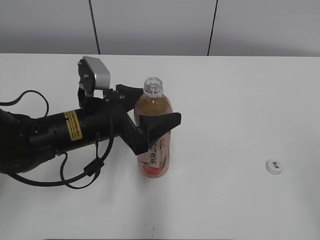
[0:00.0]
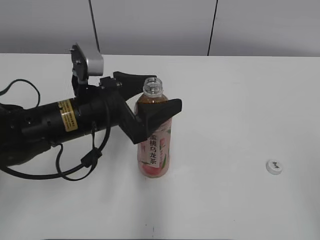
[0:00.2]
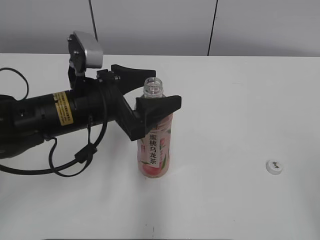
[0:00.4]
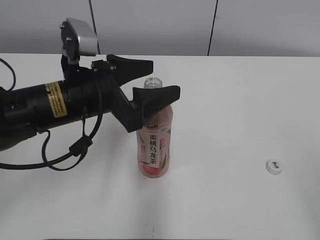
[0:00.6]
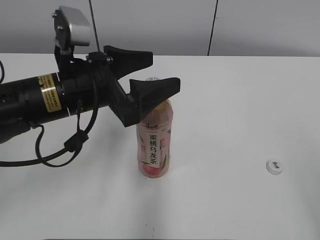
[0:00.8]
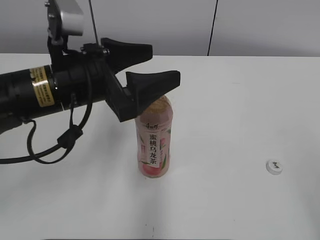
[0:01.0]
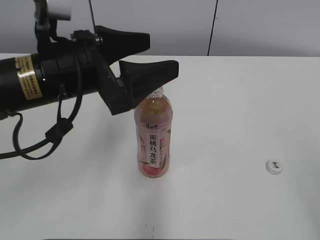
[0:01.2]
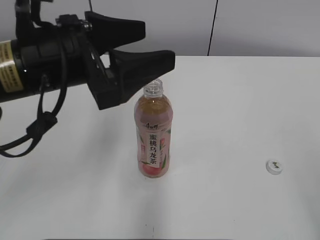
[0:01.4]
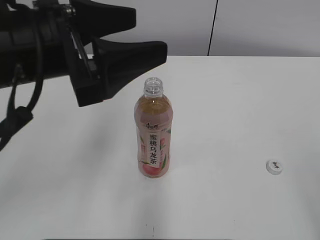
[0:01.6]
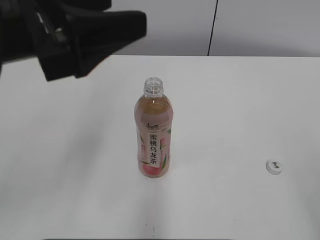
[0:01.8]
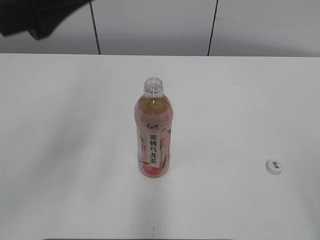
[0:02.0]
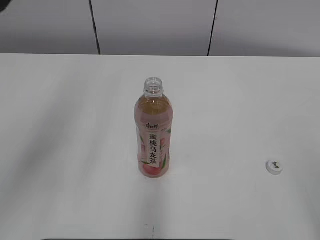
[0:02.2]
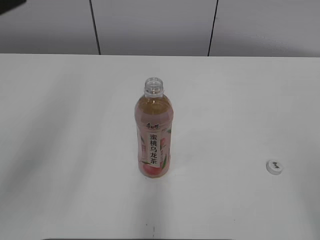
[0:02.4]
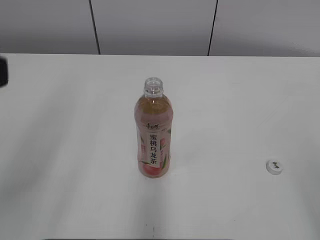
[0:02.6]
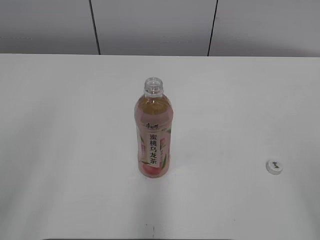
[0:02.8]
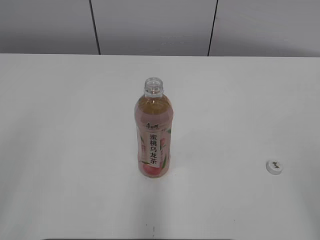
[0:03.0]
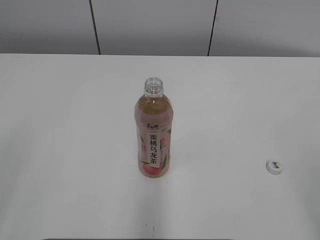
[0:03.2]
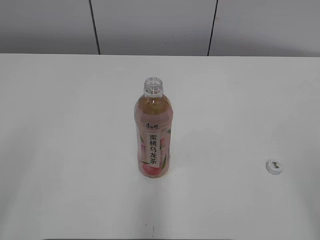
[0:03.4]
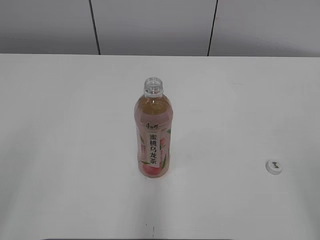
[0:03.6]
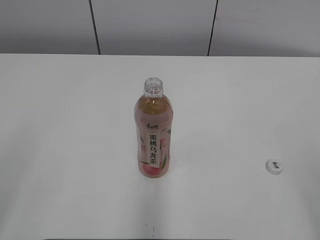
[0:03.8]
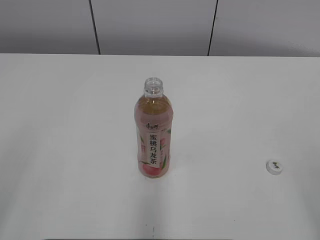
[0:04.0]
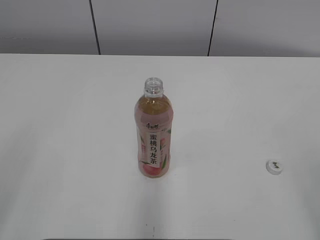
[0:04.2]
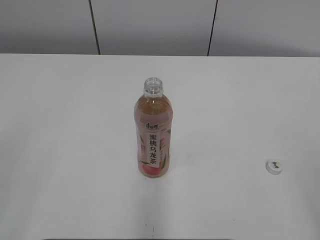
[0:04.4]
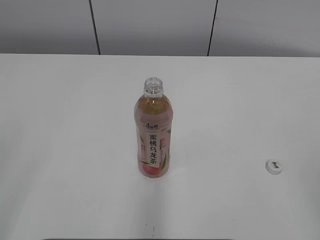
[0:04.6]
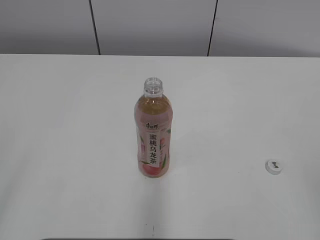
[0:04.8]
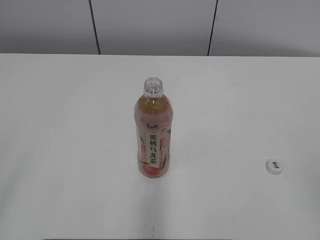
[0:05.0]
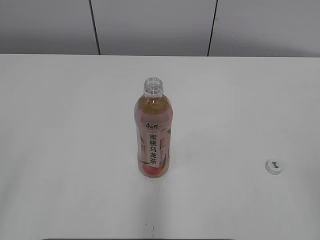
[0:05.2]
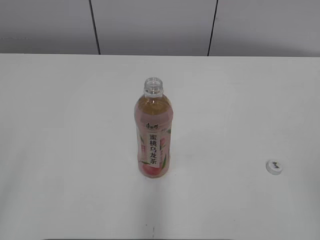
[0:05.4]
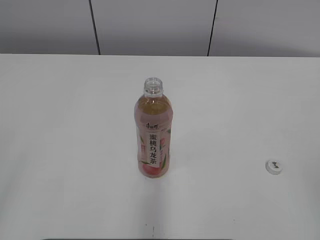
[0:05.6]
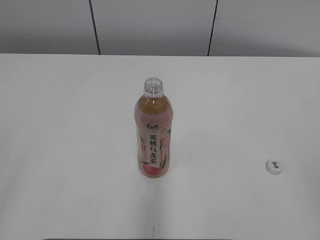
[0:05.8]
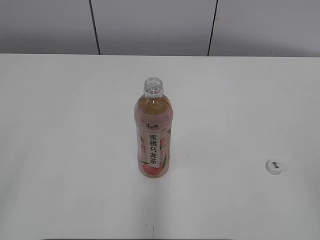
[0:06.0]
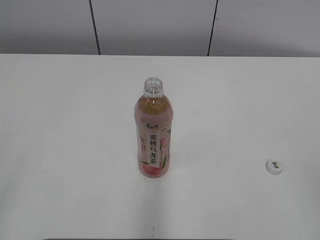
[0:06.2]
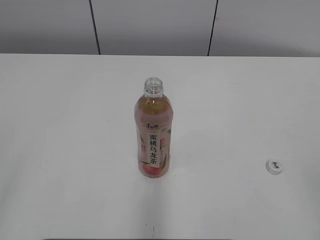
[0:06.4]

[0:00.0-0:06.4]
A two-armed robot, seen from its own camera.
0:00.0 to 0:01.6: The left gripper shifts roughly 15 cm upward.
0:01.6 to 0:03.2: The left gripper heads backward and to the left, covering approximately 25 cm.

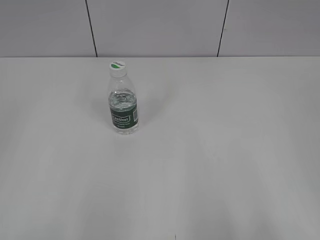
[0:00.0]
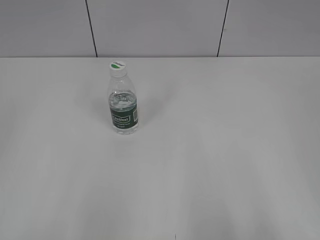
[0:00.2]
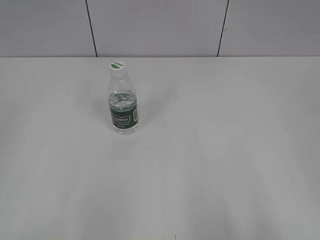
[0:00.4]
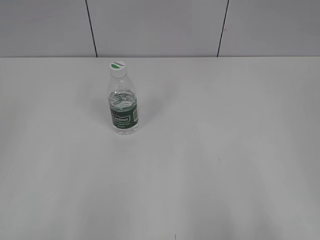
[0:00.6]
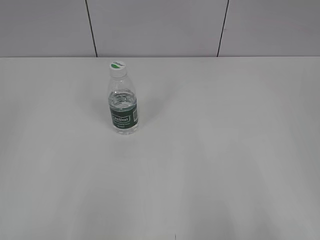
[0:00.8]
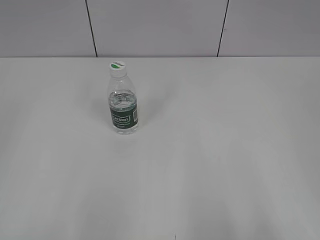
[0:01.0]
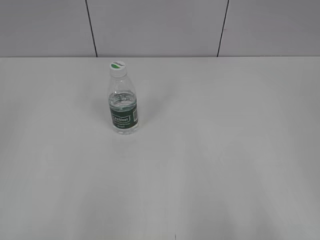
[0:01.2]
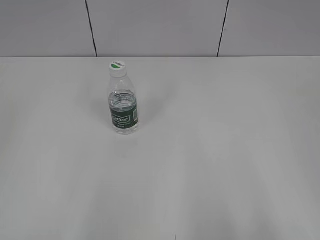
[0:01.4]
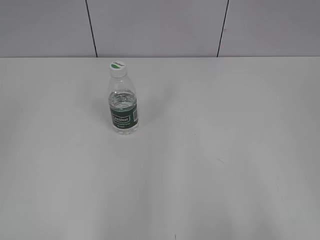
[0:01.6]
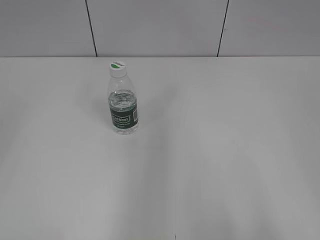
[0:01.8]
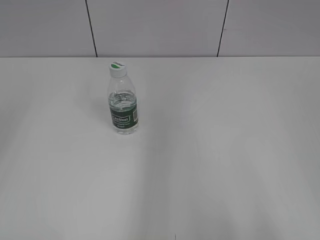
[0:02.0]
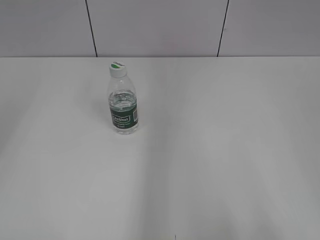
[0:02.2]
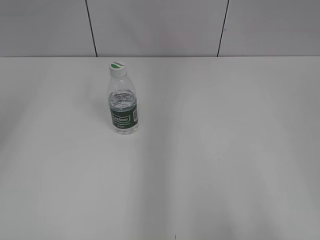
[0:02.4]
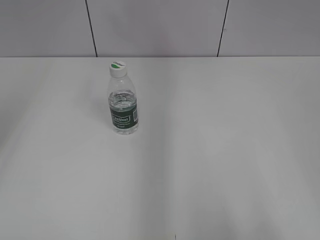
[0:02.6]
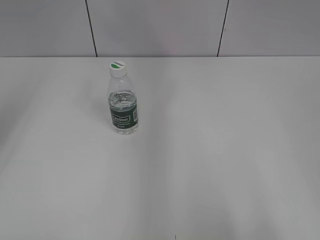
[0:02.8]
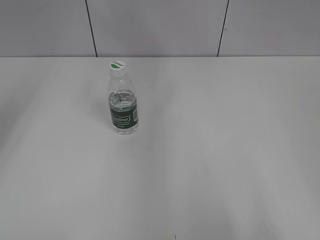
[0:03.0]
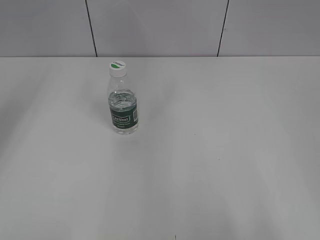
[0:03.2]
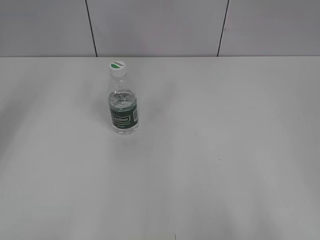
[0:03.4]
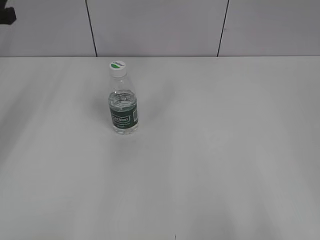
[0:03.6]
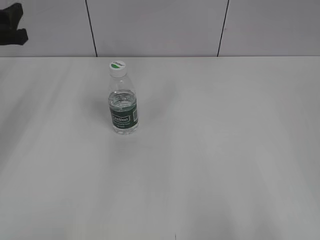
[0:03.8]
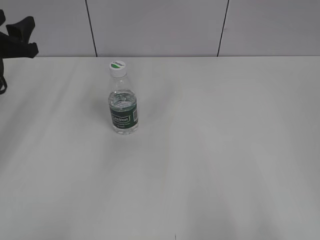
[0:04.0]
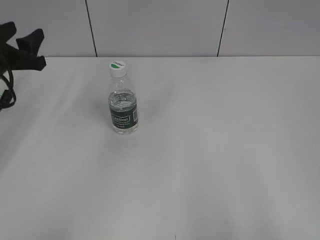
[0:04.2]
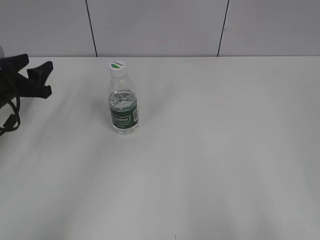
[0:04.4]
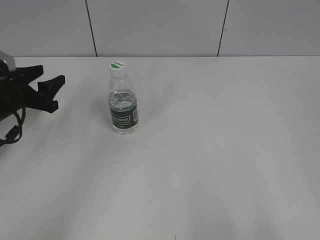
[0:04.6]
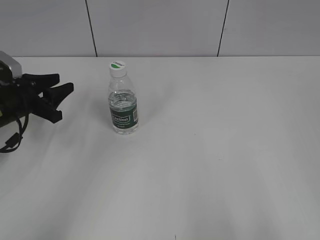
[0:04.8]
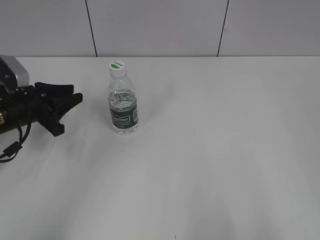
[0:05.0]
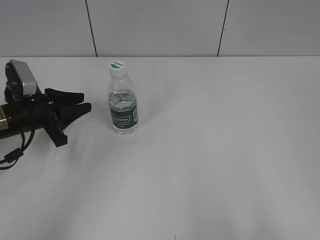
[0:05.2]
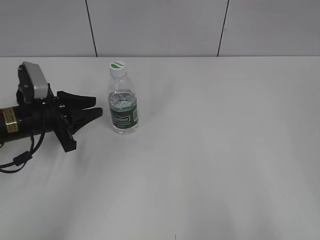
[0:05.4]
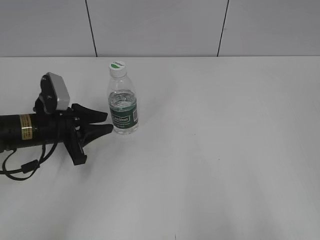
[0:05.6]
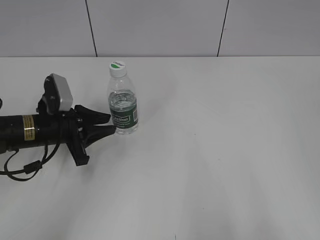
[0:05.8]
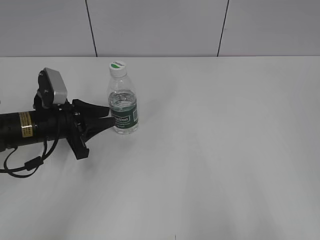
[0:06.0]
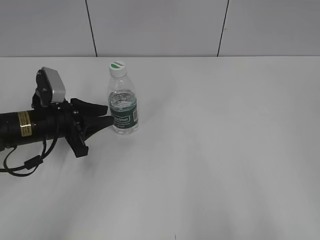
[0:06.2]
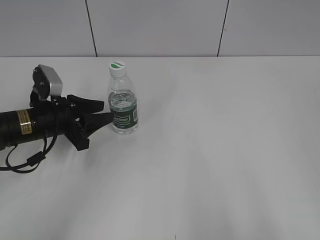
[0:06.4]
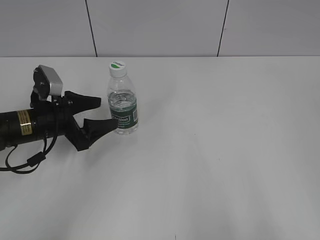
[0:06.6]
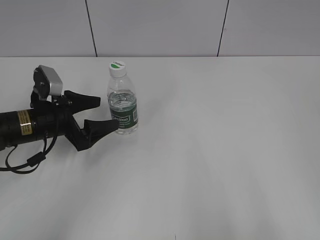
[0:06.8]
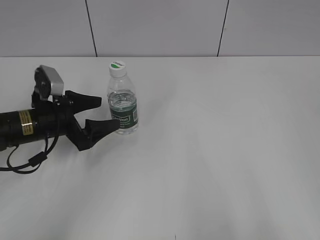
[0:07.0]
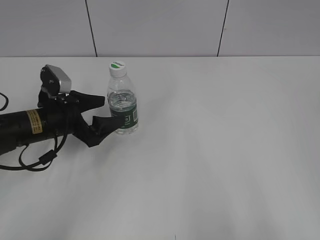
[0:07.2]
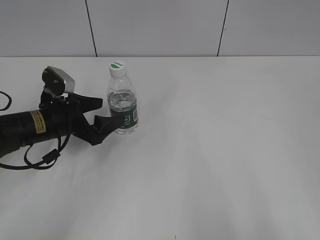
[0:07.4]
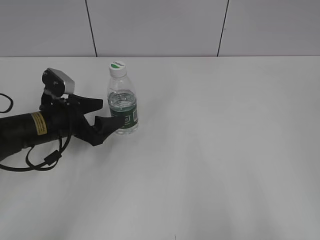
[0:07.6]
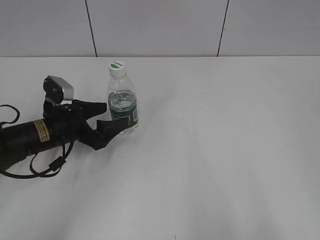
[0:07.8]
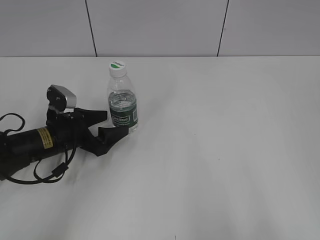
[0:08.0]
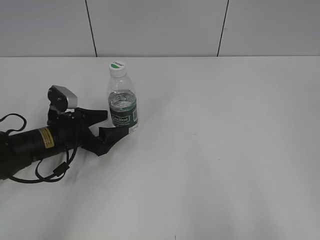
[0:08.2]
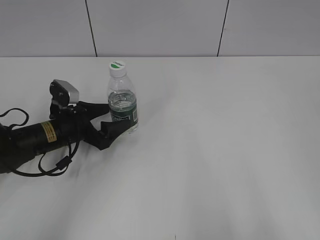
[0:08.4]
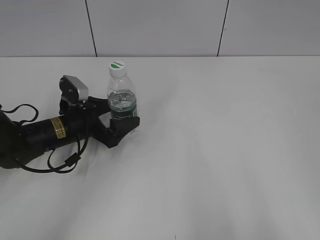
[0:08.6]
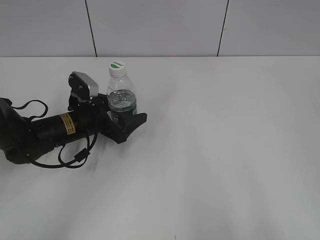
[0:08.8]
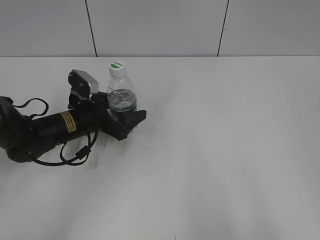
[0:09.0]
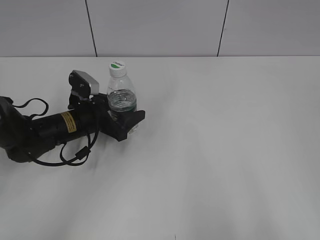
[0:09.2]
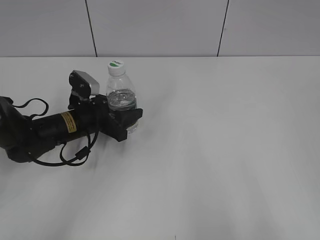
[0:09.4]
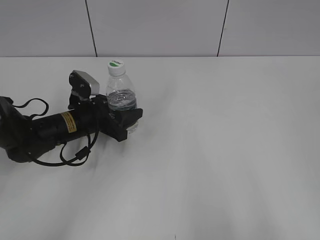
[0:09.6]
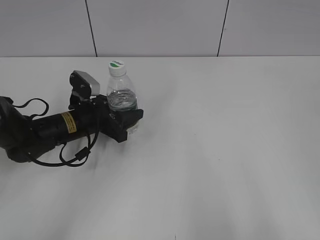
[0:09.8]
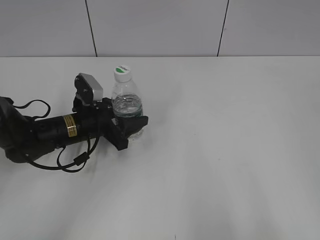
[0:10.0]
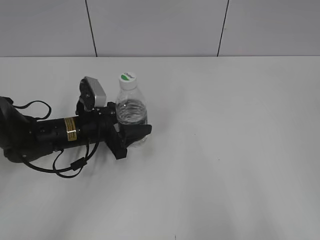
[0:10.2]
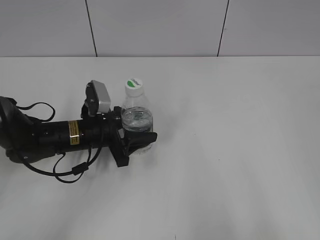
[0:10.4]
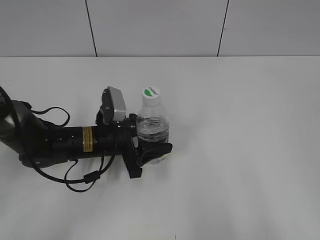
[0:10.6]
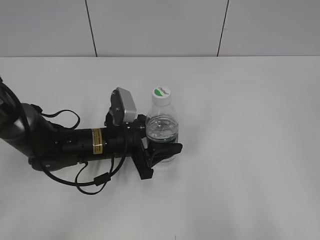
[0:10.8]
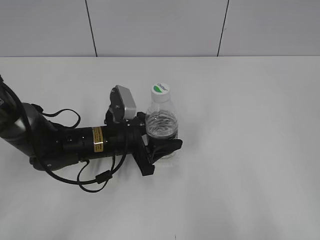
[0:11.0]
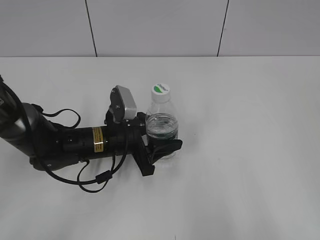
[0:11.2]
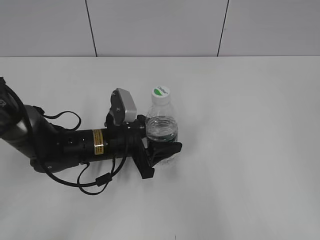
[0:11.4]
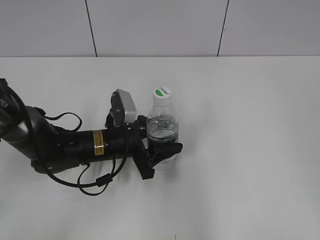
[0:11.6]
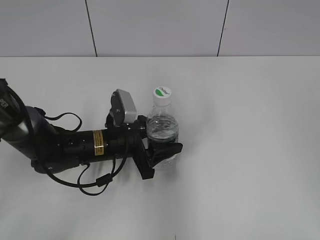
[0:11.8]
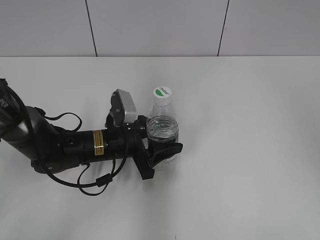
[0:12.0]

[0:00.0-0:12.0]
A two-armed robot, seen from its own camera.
Step, 0:00.0 to 0:09.6: Grasp the bottle and move it to the center of the table with the left gripper.
0:03.0 to 0:04.4: The left gripper shifts about 25 cm downward.
0:04.4 to 0:06.0: The left gripper travels to the right by roughly 10 cm, and closes.
0:06.0 to 0:07.6: The left gripper opens its fingers.
0:07.6 to 0:09.0: The left gripper shifts by roughly 5 cm.
0:09.0 to 0:10.4: The left gripper closes up.
0:10.4 to 0:12.0: The left gripper ends up some 5 cm from where it was. The right gripper moves forward and upward, roughly 20 cm.

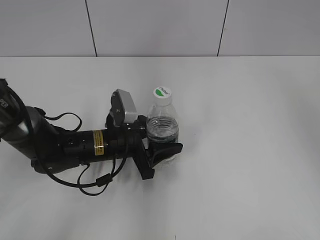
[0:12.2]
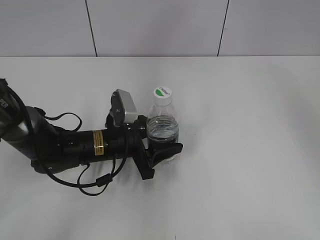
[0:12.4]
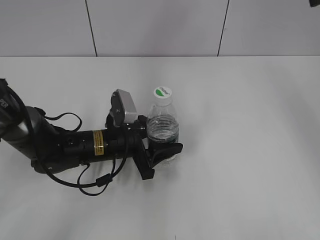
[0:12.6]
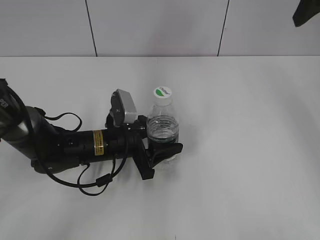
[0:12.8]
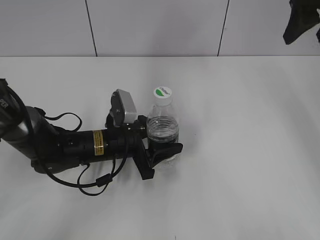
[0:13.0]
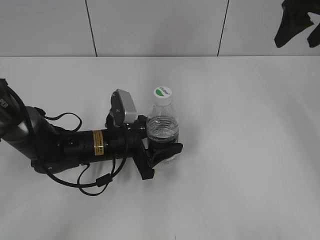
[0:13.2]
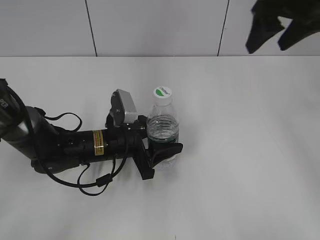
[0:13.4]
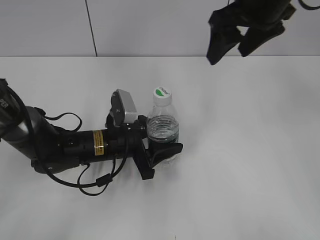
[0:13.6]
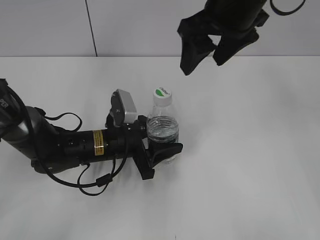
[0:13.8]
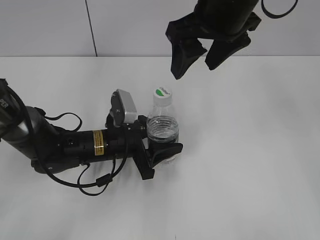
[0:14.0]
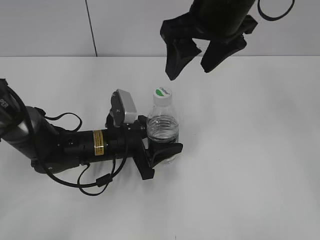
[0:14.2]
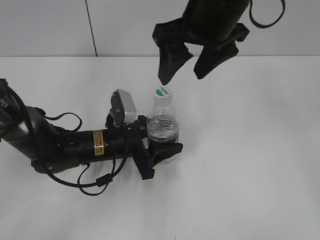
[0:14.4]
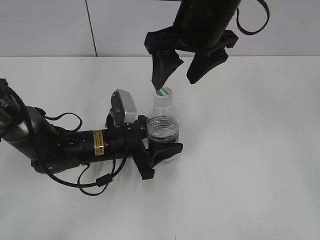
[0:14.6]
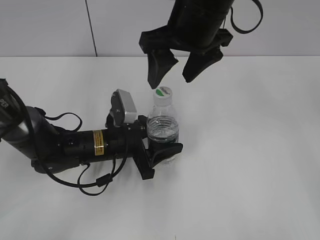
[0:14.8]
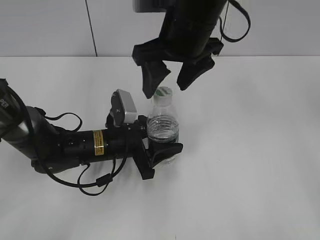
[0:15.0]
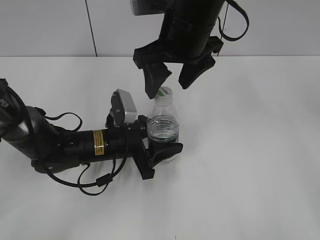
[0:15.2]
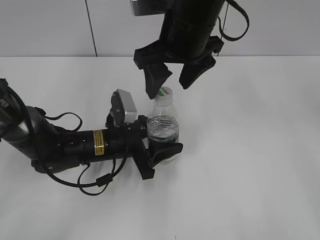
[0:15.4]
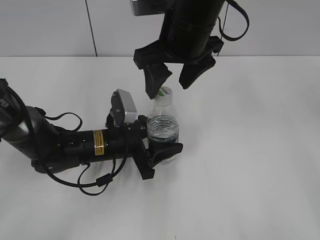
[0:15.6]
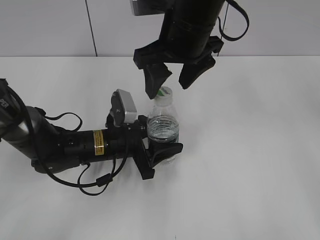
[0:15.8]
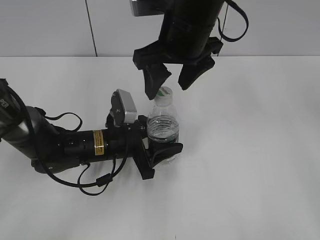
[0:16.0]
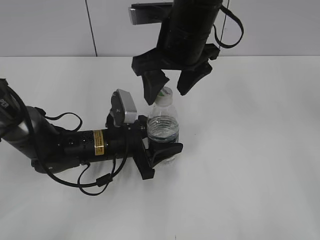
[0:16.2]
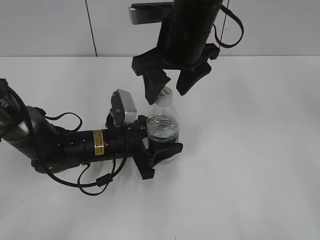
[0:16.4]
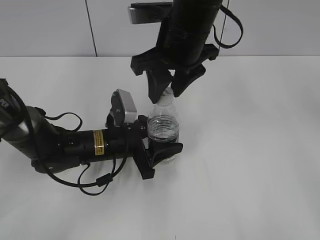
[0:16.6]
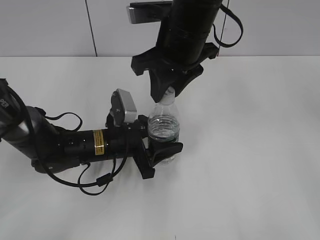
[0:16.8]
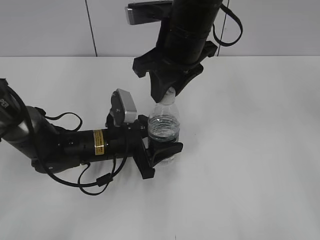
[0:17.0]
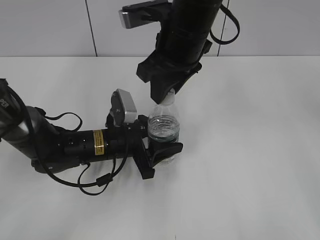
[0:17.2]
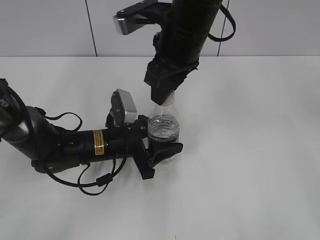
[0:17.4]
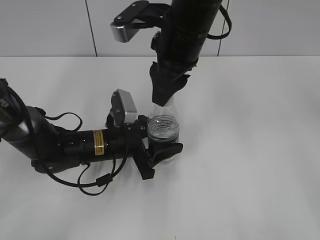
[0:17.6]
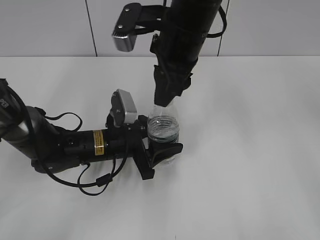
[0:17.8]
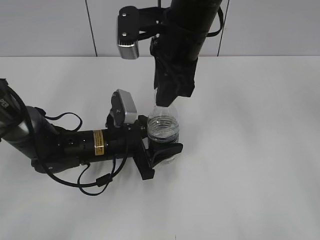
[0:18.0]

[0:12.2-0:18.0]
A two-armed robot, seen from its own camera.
0:12.2 to 0:13.6: The right gripper travels to the left, forward and downward by roughly 20 cm.
0:13.6 to 0:15.0: The right gripper moves to the left, approximately 10 cm.
0:15.0 to 0:16.6: The right gripper closes its fingers.
